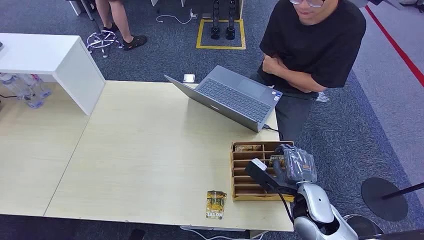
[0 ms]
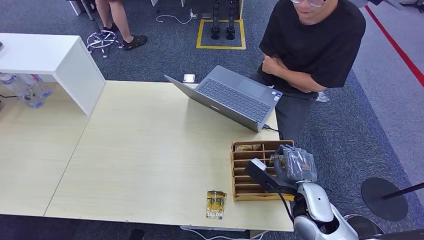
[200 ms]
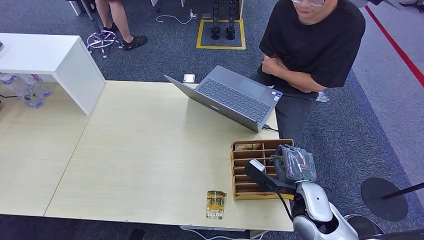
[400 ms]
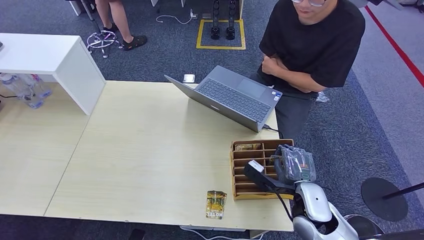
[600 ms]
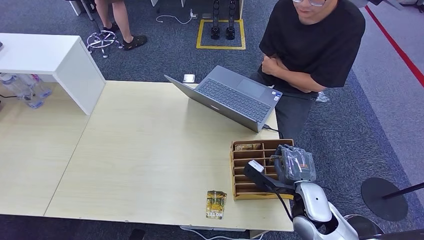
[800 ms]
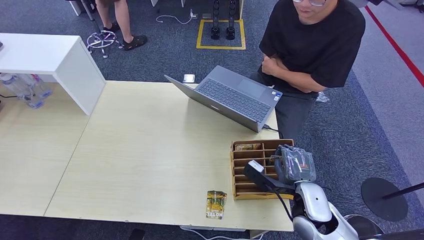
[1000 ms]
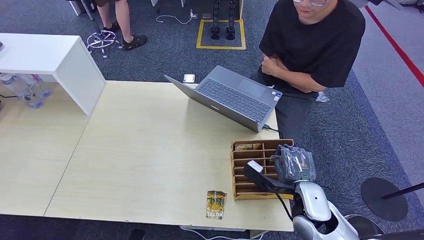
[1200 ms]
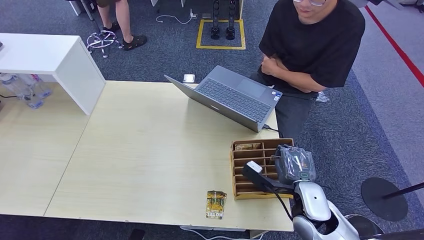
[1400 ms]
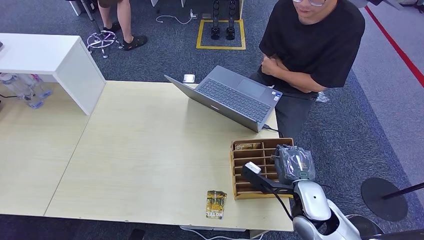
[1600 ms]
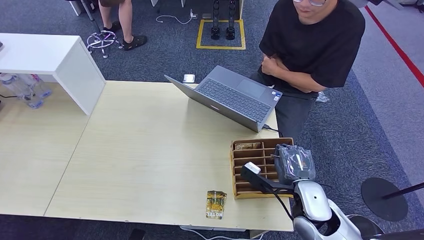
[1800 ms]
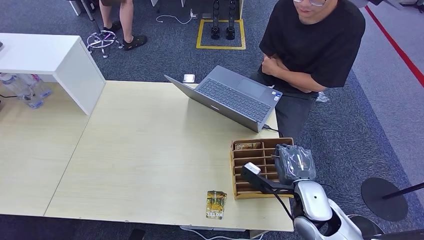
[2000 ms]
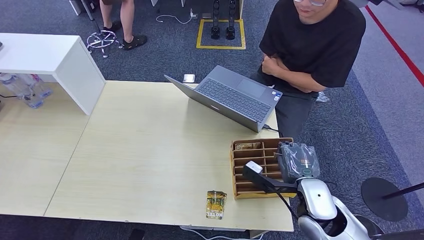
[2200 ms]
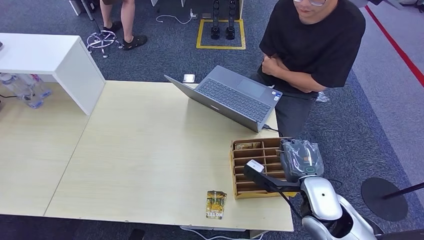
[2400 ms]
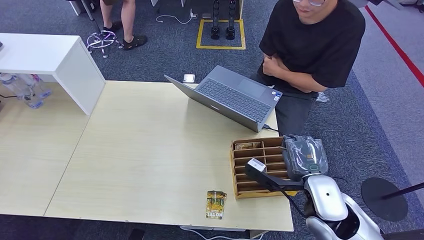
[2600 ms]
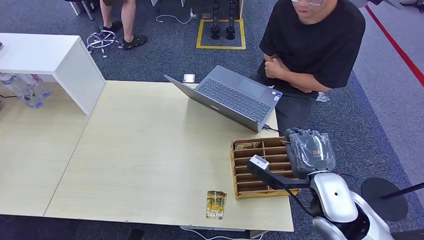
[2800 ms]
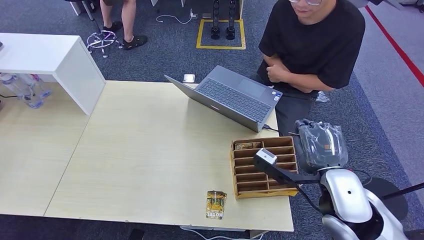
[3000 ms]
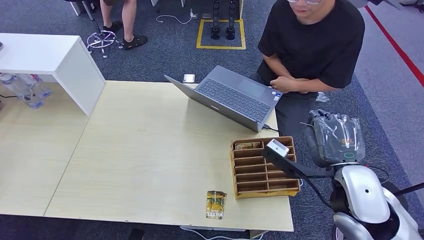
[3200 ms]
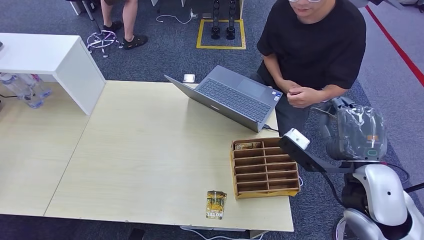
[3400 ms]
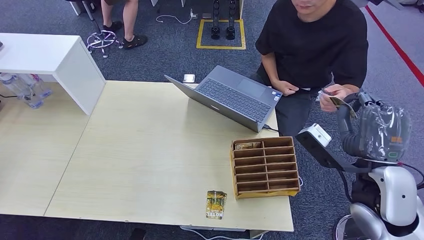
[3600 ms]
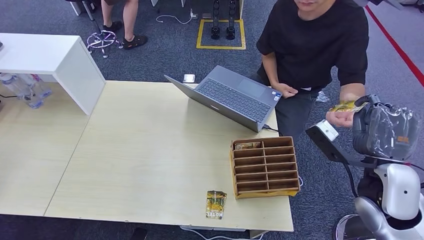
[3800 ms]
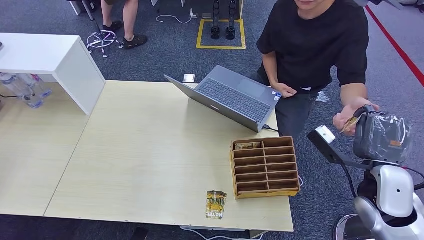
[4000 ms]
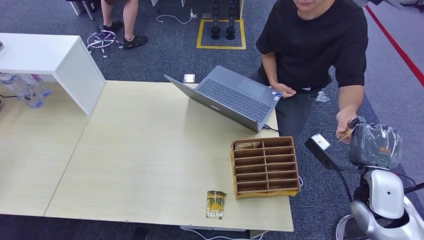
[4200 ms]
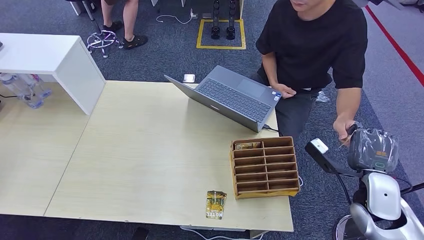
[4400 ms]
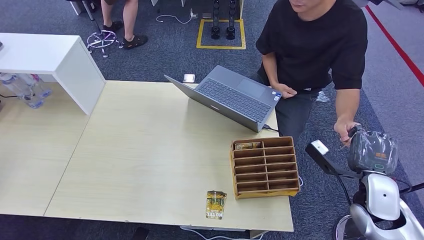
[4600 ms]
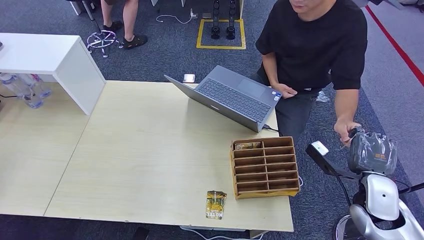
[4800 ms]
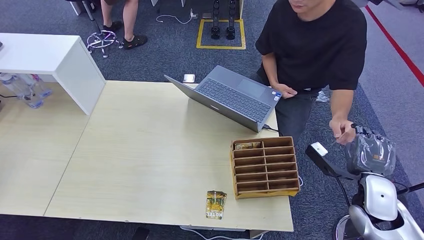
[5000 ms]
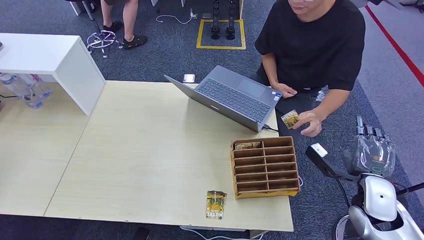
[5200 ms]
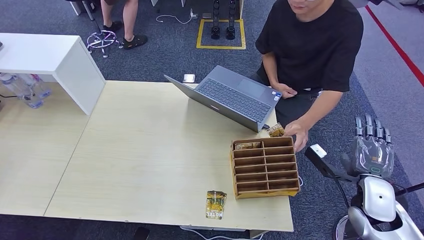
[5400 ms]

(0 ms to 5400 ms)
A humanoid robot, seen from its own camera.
Step, 0 ms - 3200 ms: Pick up the key card from the card box.
Step, 3400 ms - 5400 ms: Hand the key card to the target.
1400 ms - 2800 ms: The right hand goes approximately 10 cm upward.
2800 ms - 4000 ms: The right hand is displaced to the right by approximately 10 cm.
4000 ms - 5400 ms: The right hand shifts roughly 5 cm downward.
